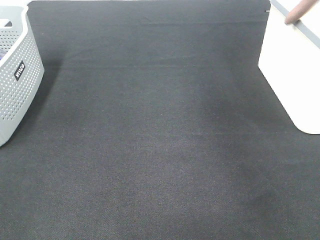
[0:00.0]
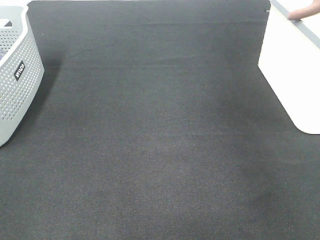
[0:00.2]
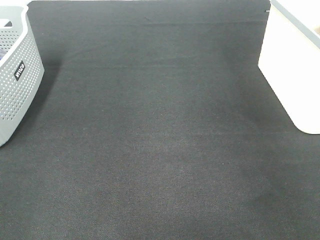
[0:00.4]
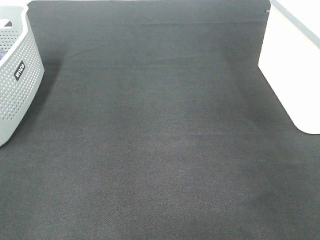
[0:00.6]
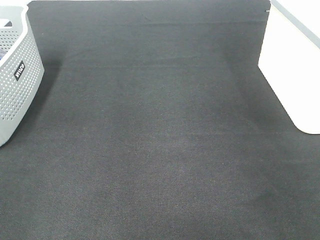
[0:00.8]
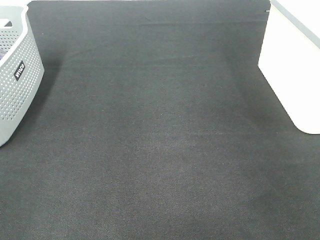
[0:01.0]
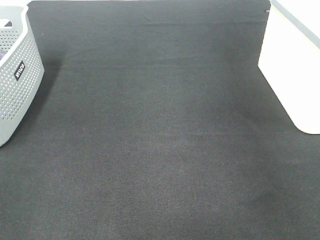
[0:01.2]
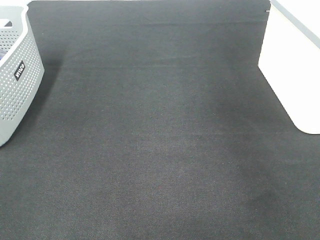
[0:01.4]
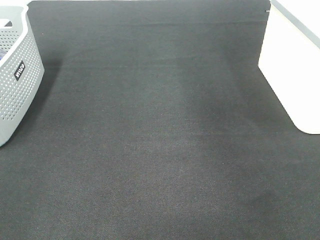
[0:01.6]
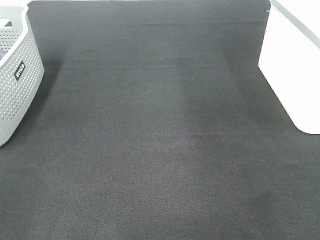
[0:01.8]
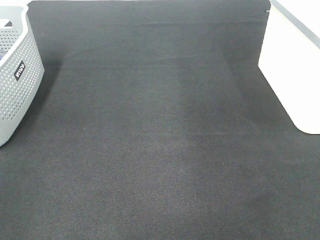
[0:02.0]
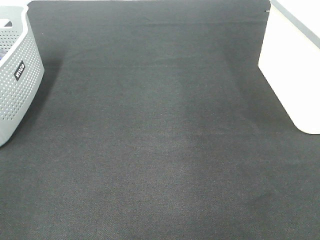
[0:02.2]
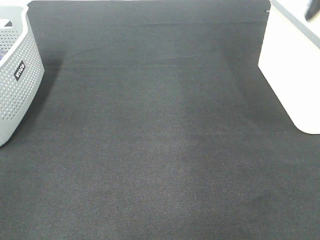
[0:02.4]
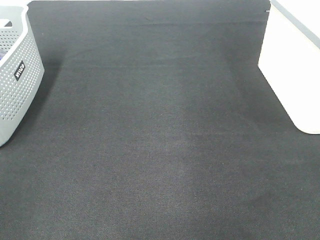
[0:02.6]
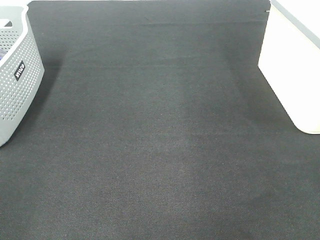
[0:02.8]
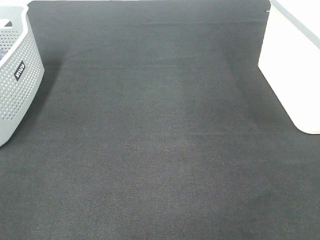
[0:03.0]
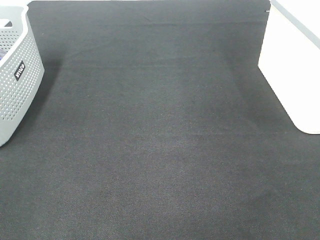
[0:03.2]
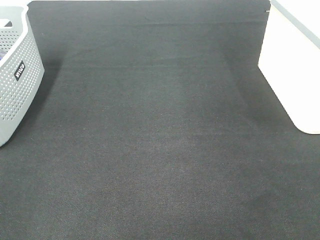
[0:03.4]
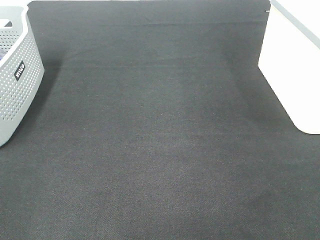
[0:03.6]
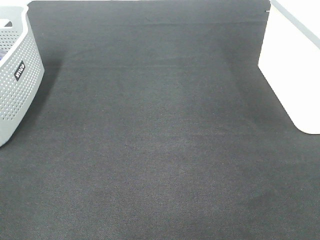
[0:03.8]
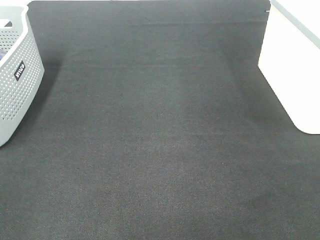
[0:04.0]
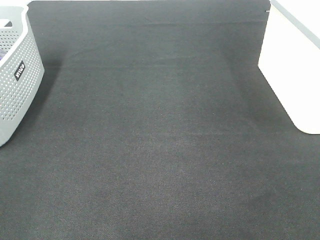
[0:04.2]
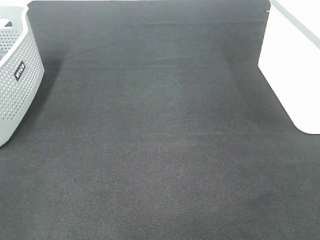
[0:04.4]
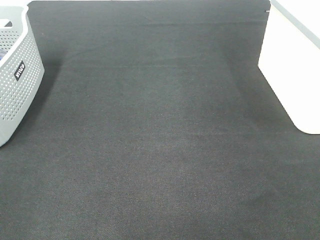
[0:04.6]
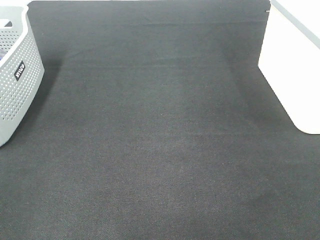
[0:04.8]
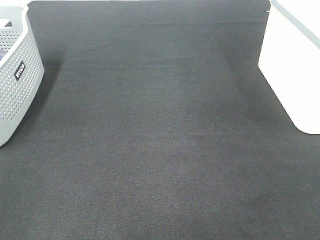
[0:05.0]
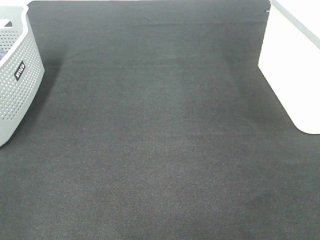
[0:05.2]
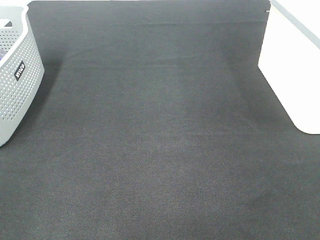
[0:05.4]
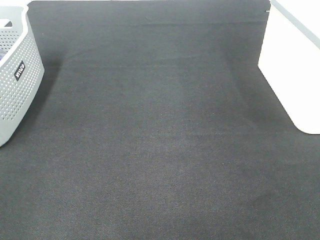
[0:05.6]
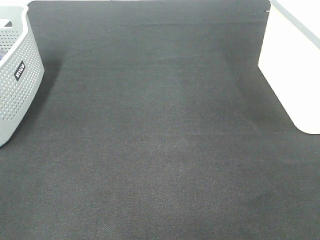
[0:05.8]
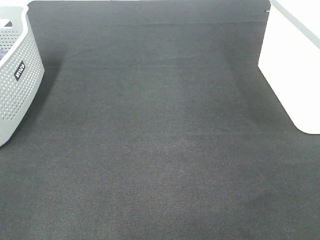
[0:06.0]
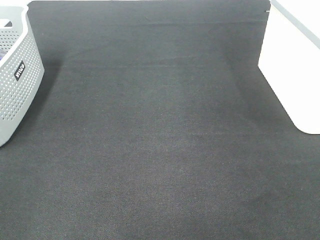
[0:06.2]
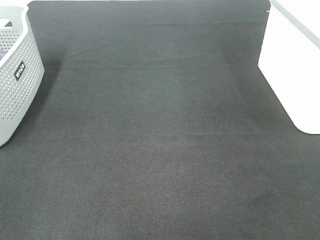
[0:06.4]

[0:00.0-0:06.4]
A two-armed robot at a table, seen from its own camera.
0:04.8 to 0:06.4: Both grippers stay about where they are.
